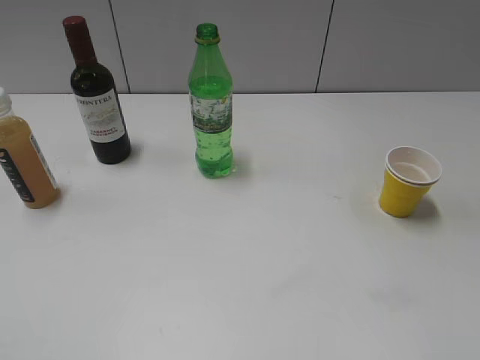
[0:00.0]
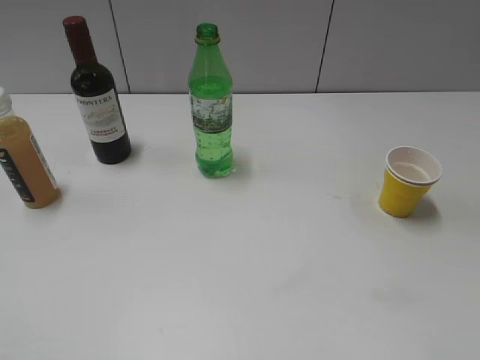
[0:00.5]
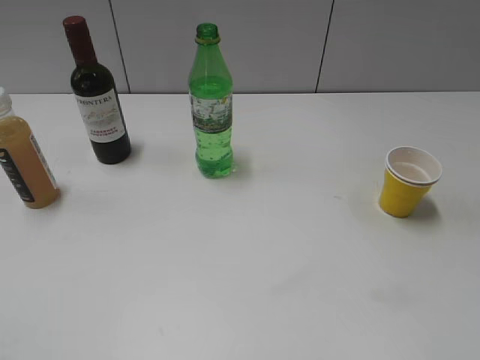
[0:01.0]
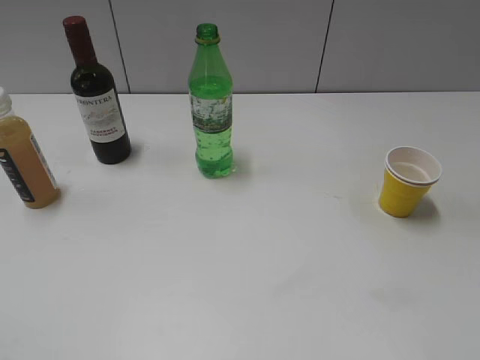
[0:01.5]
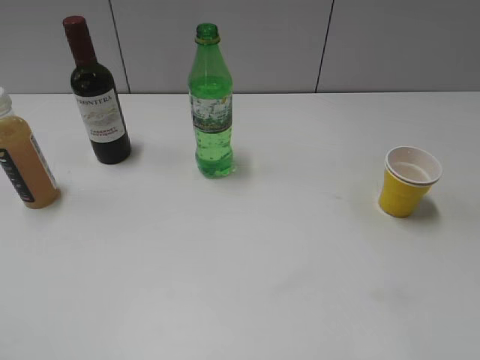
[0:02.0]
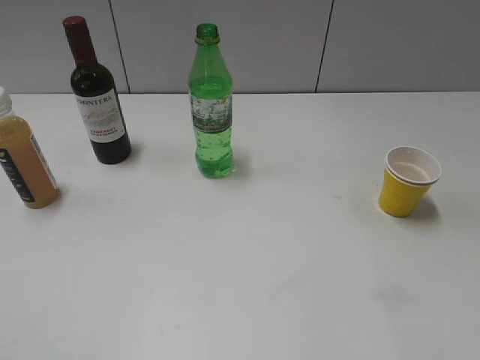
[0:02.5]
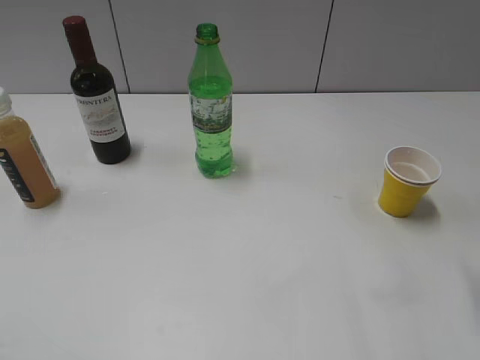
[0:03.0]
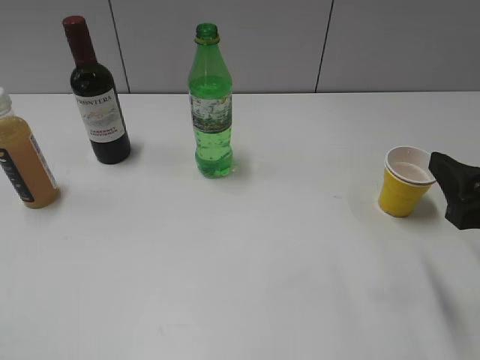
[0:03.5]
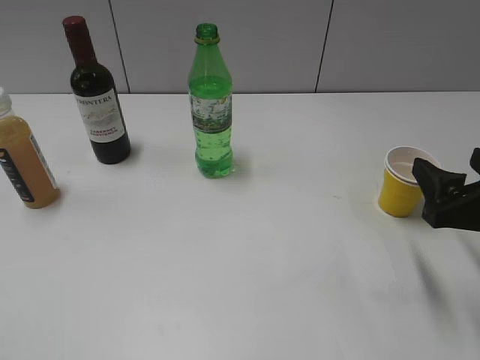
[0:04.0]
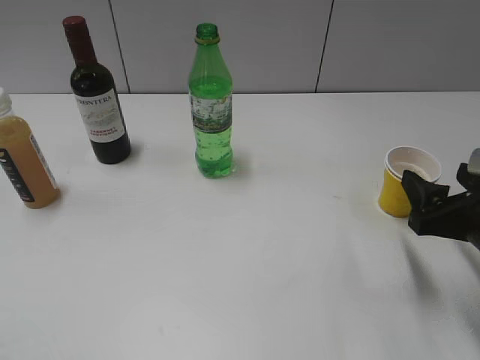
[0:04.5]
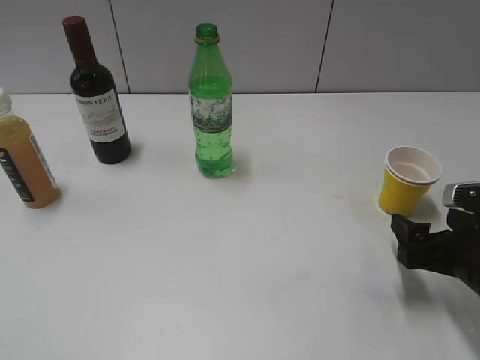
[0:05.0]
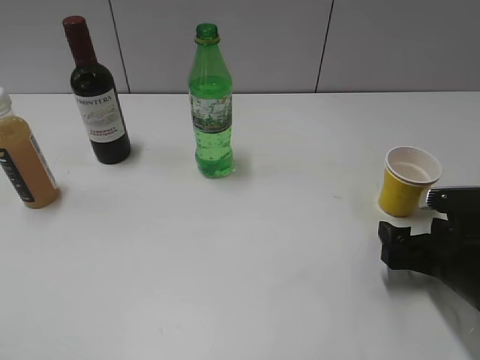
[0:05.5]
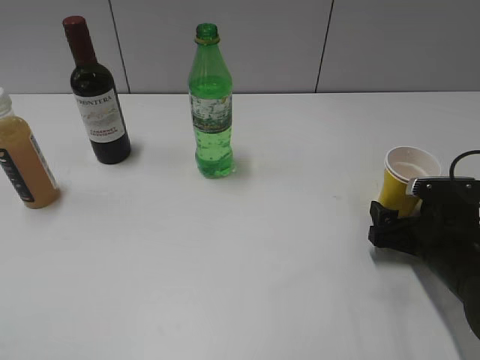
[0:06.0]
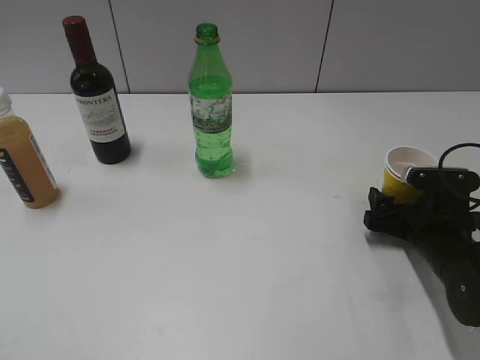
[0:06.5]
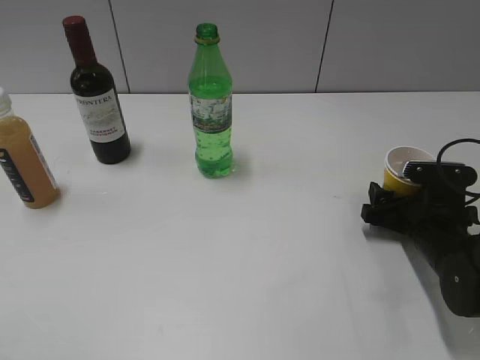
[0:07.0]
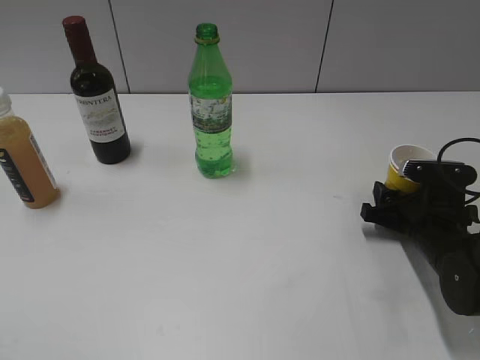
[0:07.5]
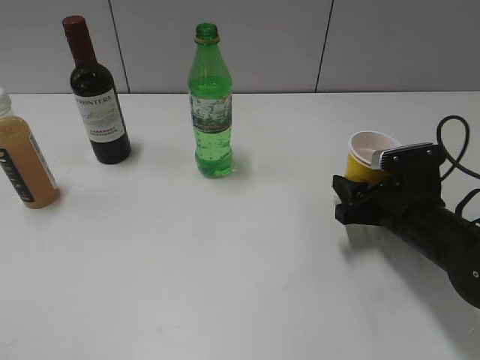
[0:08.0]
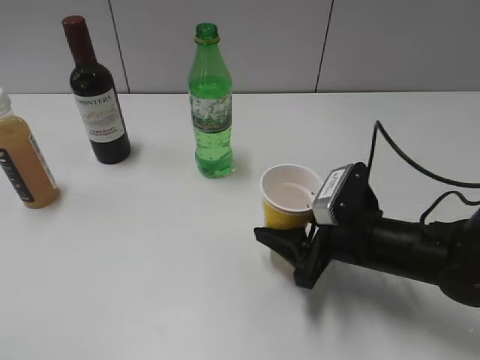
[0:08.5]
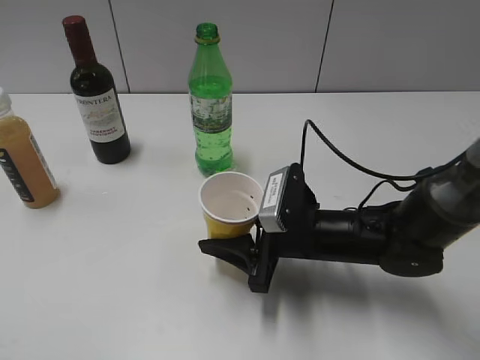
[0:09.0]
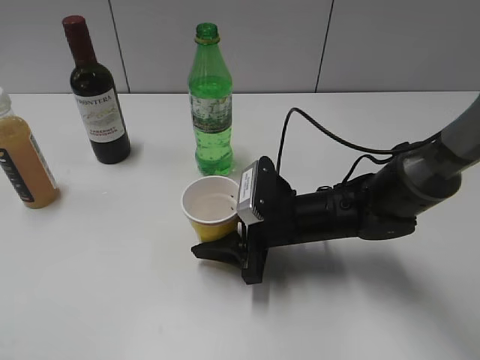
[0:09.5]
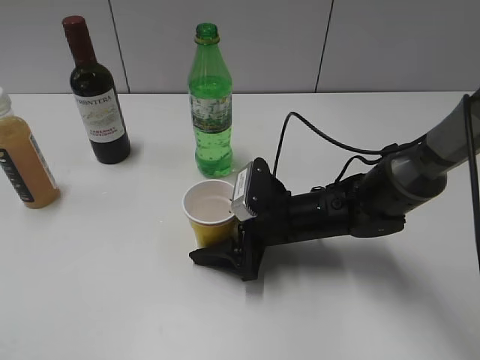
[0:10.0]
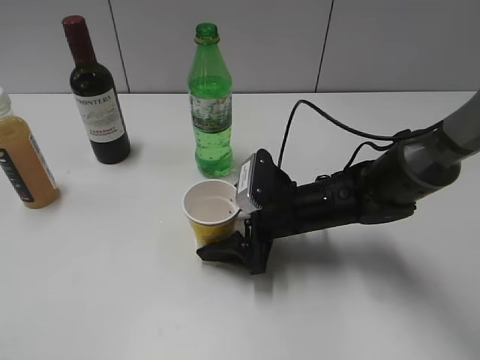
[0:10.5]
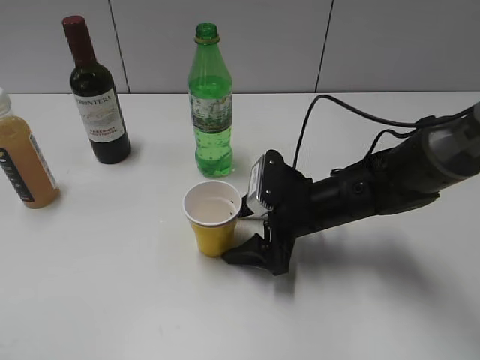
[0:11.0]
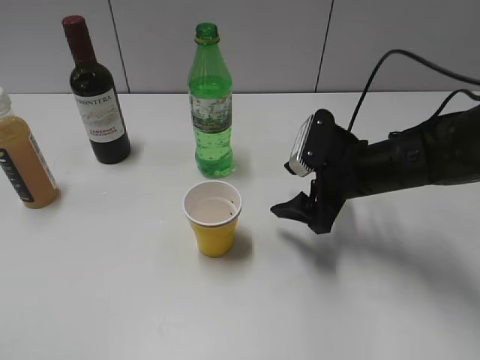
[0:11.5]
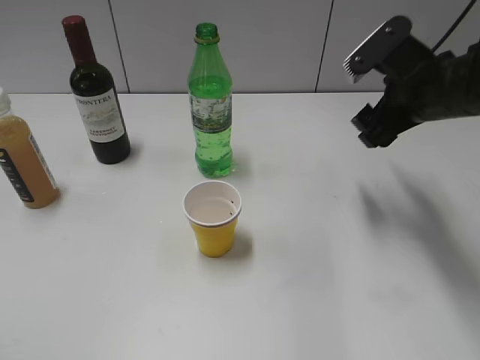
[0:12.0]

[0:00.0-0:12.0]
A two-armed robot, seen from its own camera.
Step, 0:01.0 to 0:07.0: Grasp the yellow paper cup with right gripper.
Step, 0:07.5 to 0:11.0: Place the yellow paper cup on the table with right gripper.
0:02.0 to 0:04.0: The right gripper is displaced forward and downward by roughly 20 cm.
0:04.0 to 0:06.0: The right gripper travels downward and forward by about 15 cm.
0:06.0 to 0:08.0: The right gripper ends up about 5 cm from where it was, and closes up.
0:08.0 to 0:10.0: The right gripper shifts approximately 15 cm to the left, and opens its fingers.
0:10.0 to 0:12.0: The right gripper heads upward and to the right, covering approximately 20 cm.

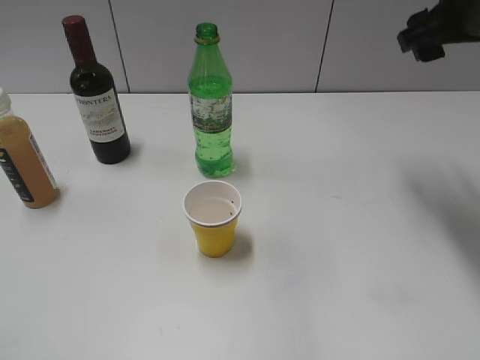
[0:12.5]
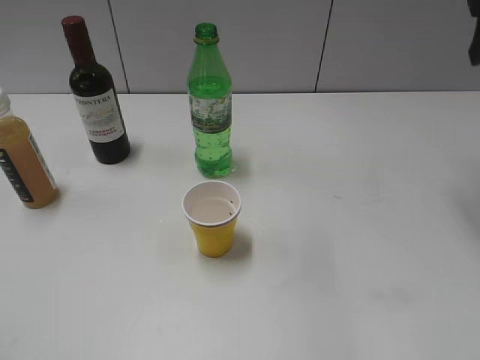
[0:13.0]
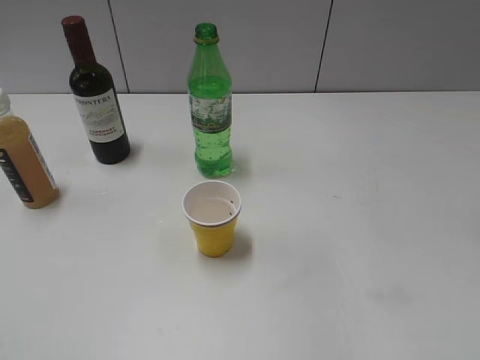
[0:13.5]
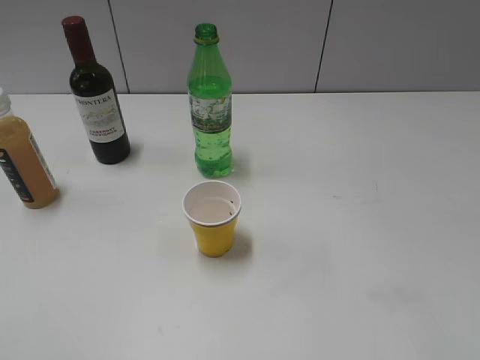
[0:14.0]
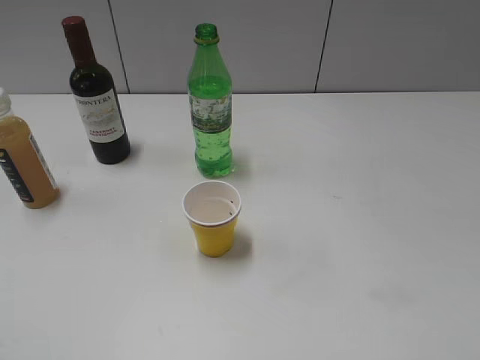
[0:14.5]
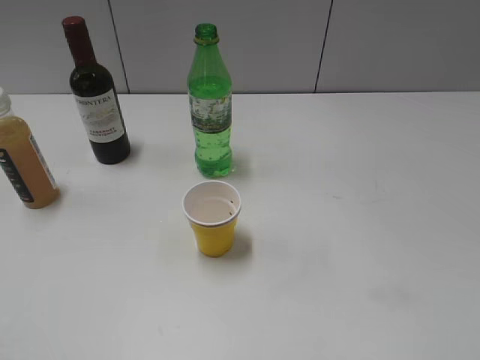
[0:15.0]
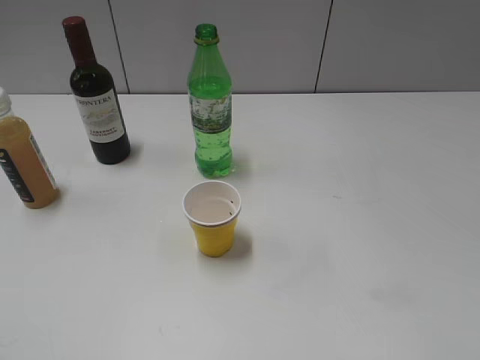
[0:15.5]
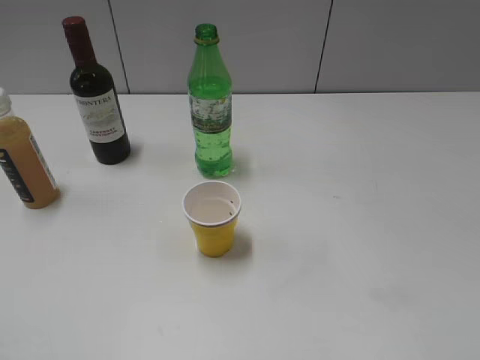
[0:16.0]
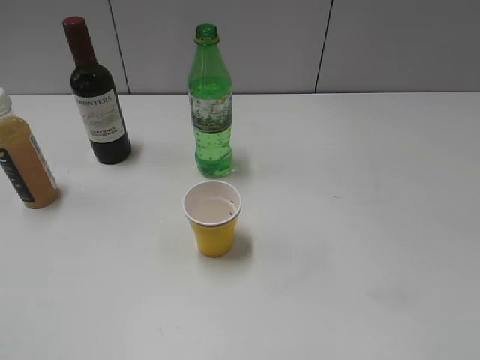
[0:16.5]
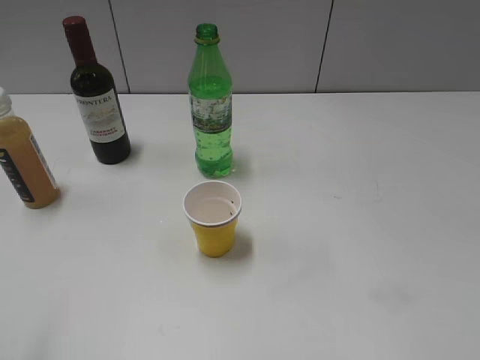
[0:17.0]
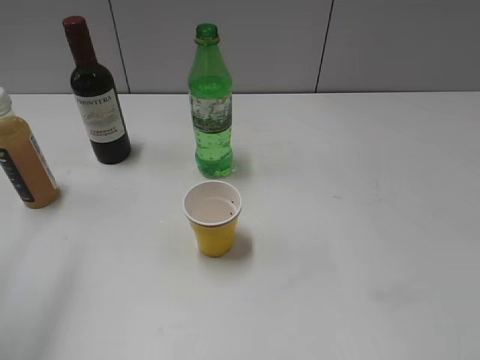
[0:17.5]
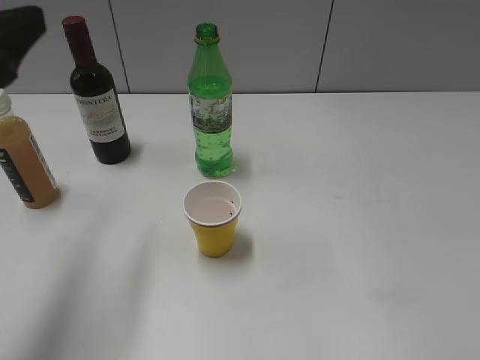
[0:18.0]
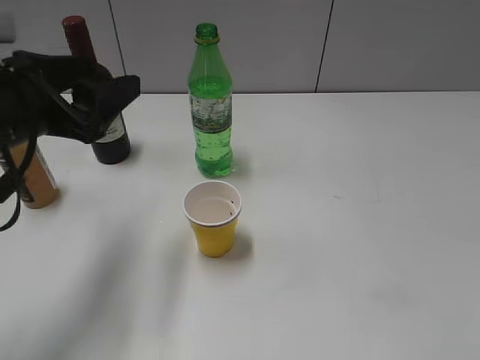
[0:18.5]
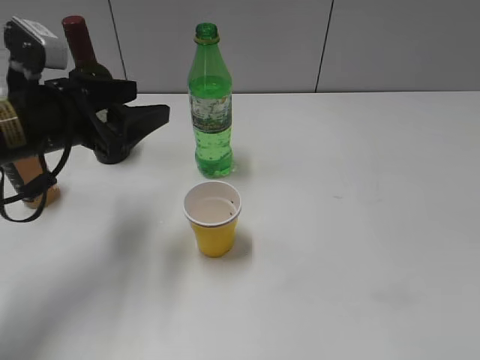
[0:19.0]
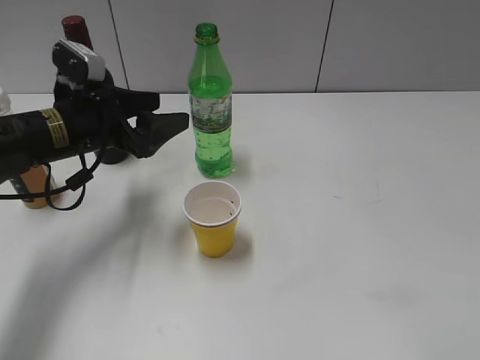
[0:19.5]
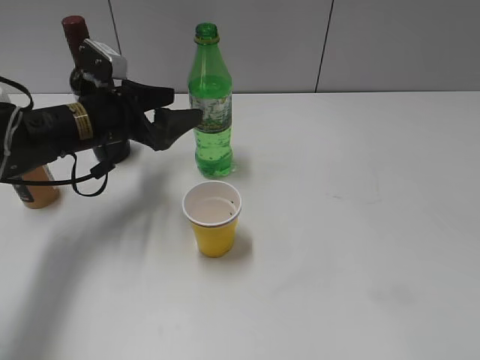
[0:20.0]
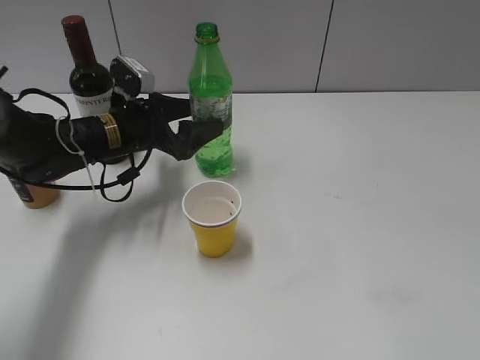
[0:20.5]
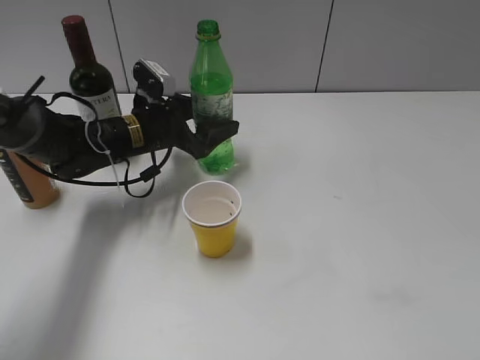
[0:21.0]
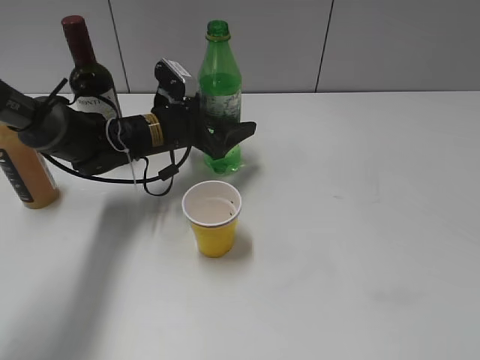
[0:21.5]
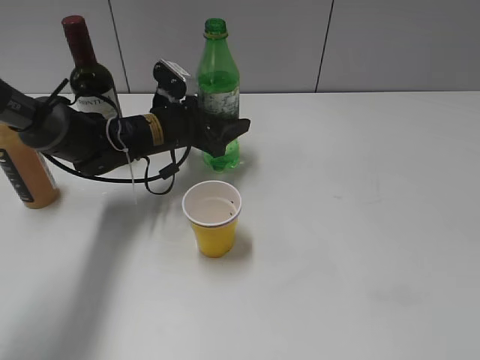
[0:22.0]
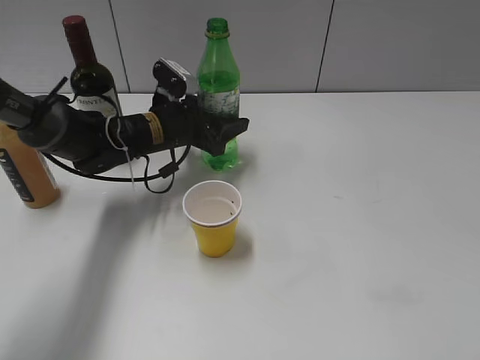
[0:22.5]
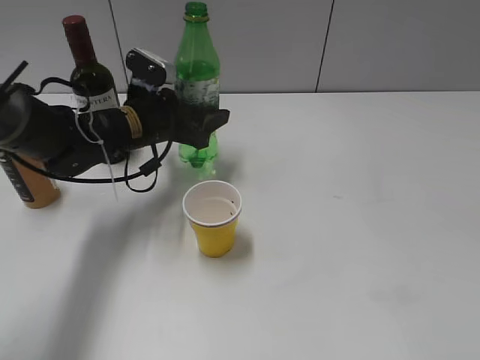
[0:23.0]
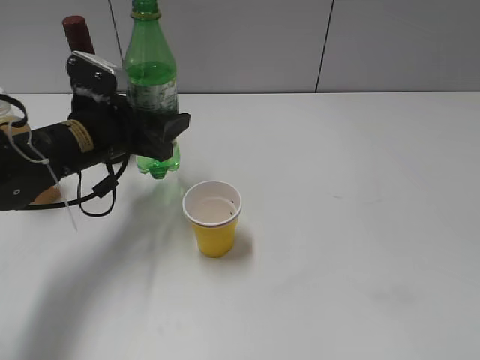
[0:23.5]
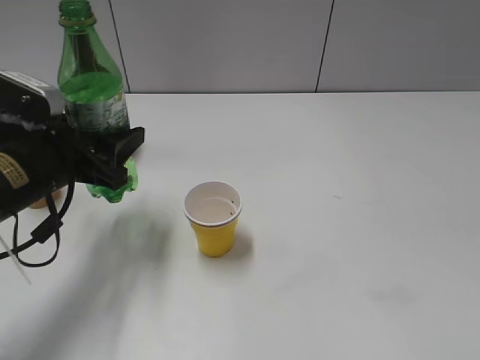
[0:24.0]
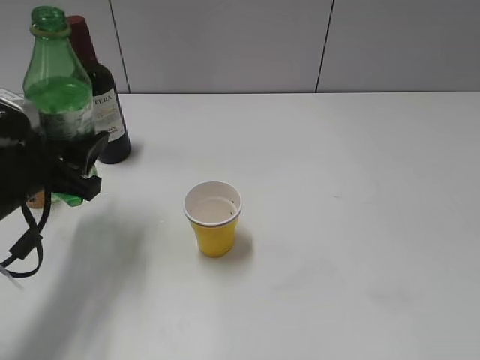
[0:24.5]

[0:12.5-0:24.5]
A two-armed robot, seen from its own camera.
Step, 0:12.5 to 0:22.0: Grasp the bottle with sprite with left gripper.
0:12.5 to 0:14.5: The right gripper is displaced backward by some 30 cm.
0:16.5 to 0:18.5: The left gripper goes about 25 cm forward and to the right.
0:18.5 to 0:20.5: The left gripper travels forward and downward by approximately 20 cm.
0:20.5 to 0:22.5: The left gripper moves roughly 5 cm, and closes.
0:22.5 to 0:24.5: The left gripper is displaced backward and to the left by some 20 cm.

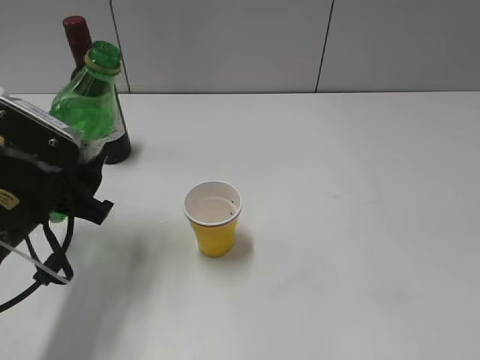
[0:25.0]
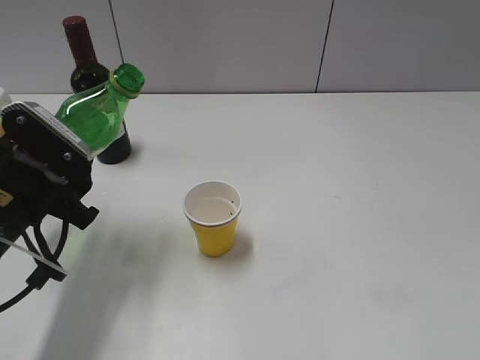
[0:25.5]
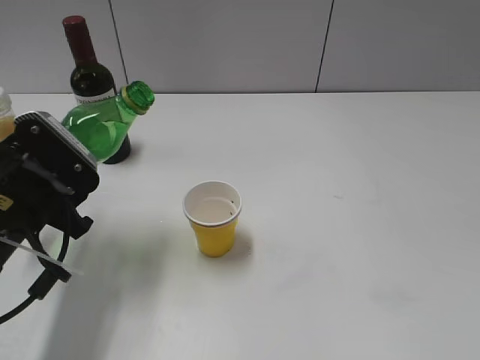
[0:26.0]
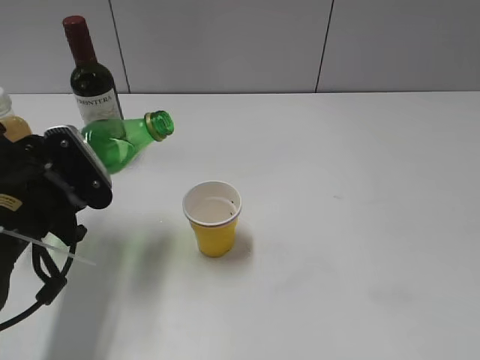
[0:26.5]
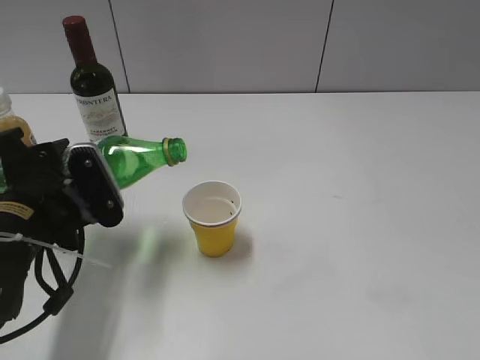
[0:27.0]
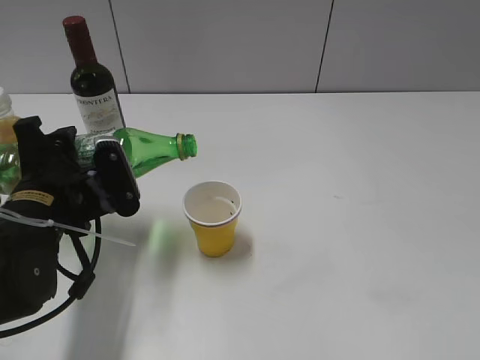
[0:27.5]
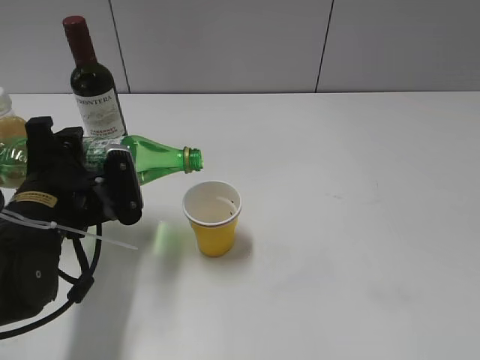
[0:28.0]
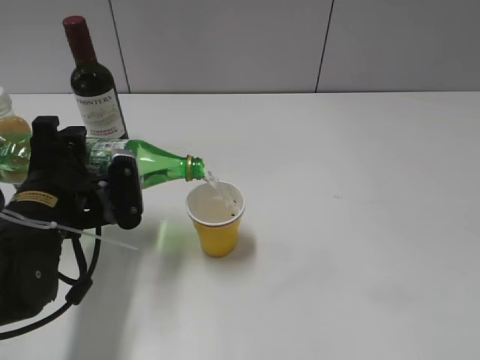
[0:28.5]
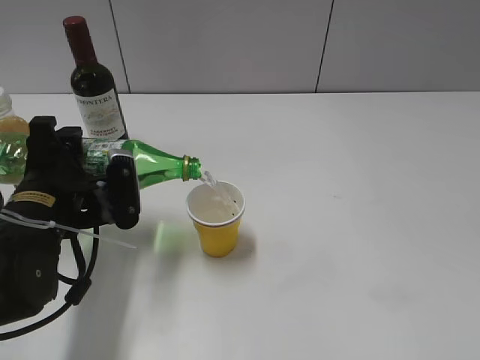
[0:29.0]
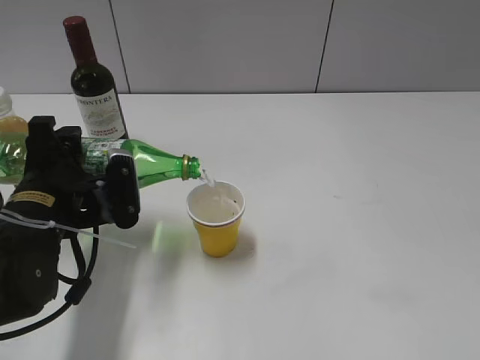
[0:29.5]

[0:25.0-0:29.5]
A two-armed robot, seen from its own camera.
0:27.0 to 0:29.5: The grippers move only a little.
